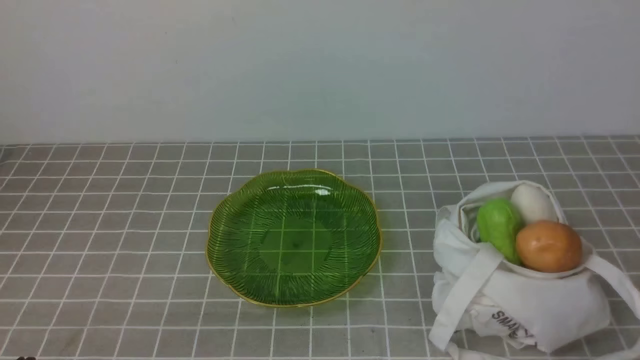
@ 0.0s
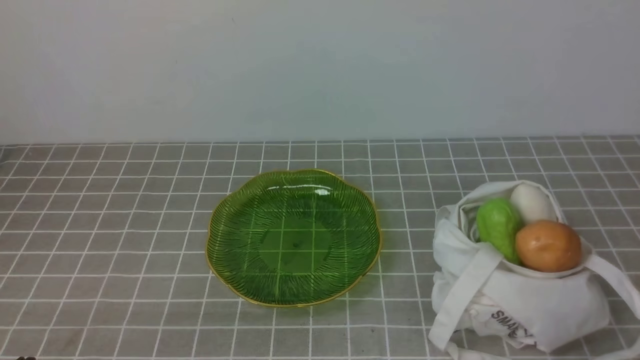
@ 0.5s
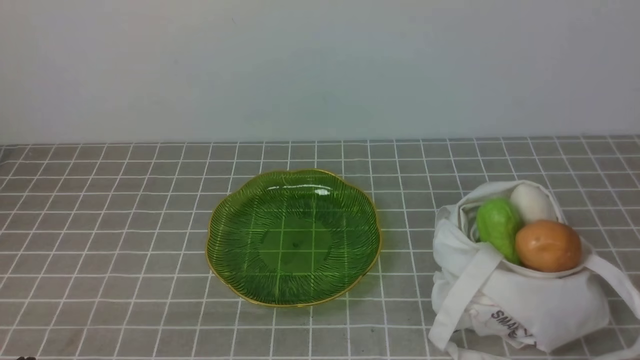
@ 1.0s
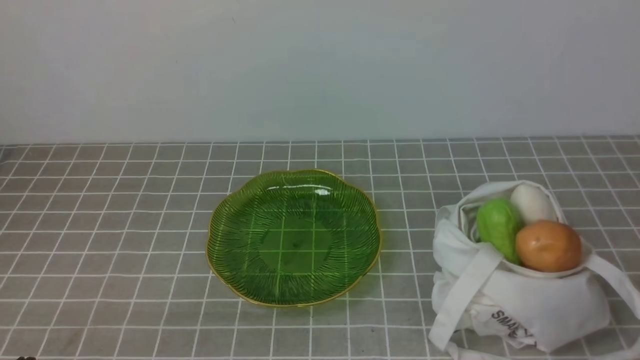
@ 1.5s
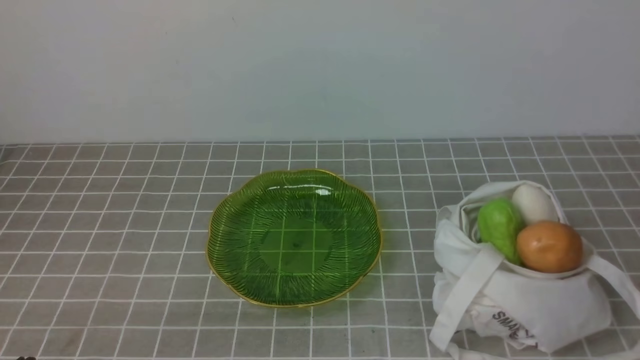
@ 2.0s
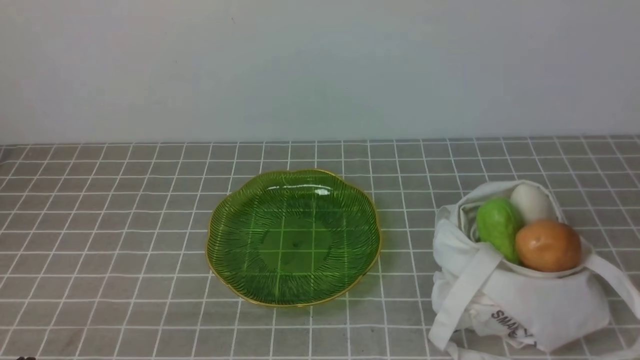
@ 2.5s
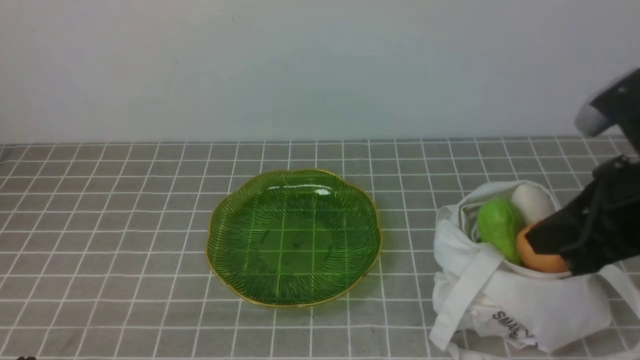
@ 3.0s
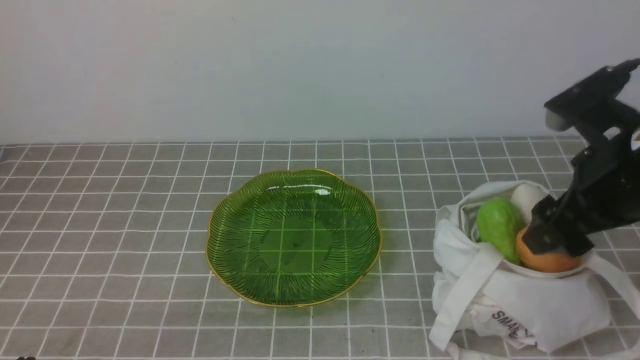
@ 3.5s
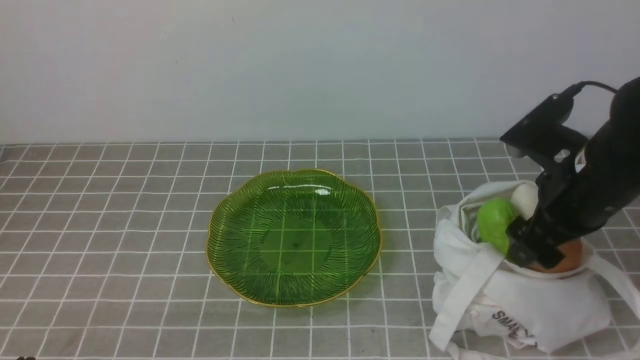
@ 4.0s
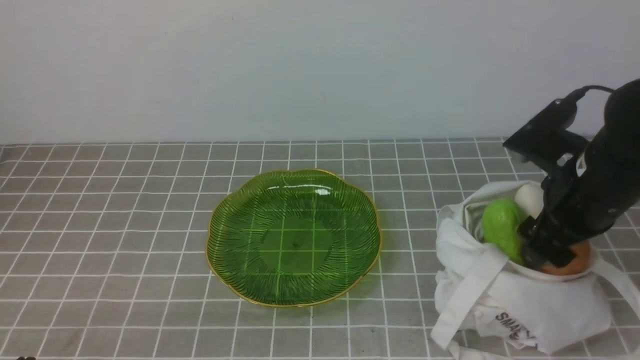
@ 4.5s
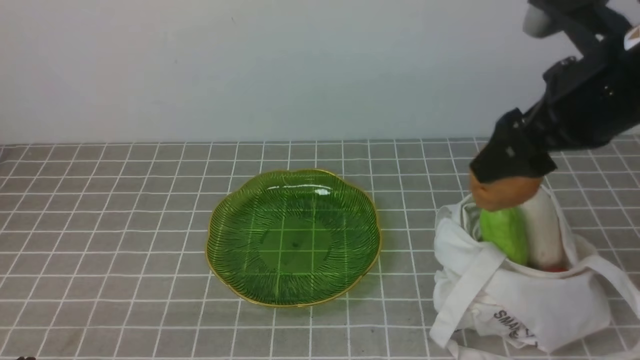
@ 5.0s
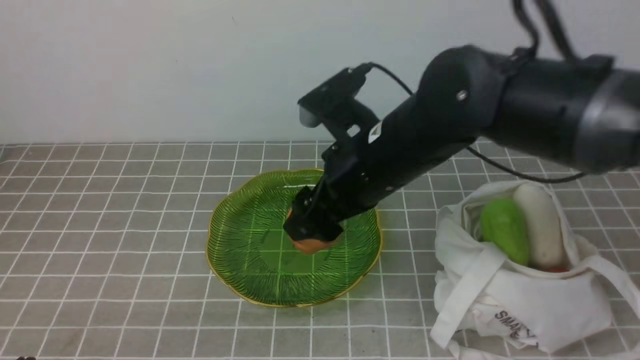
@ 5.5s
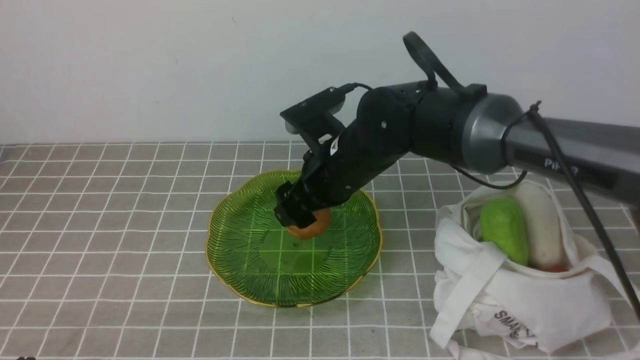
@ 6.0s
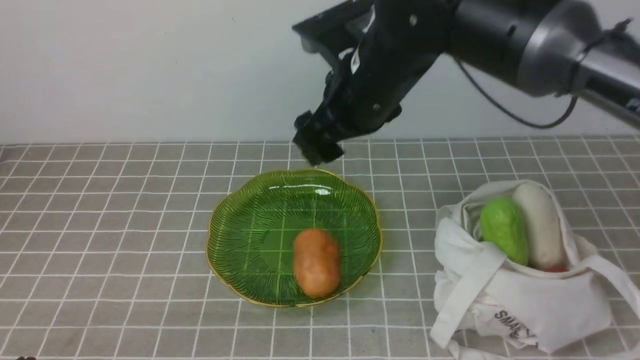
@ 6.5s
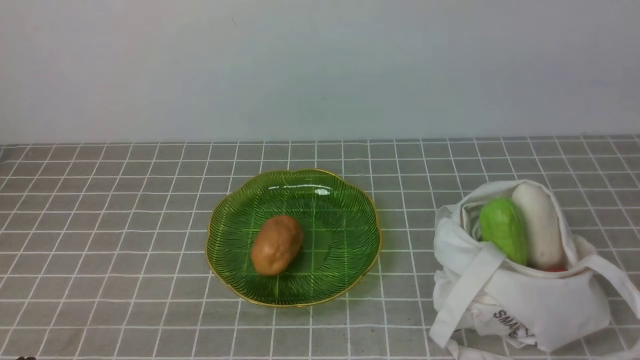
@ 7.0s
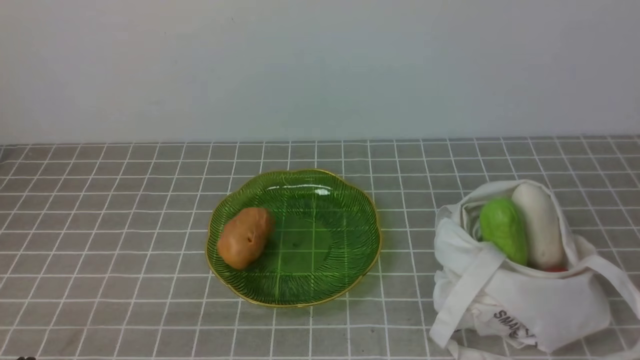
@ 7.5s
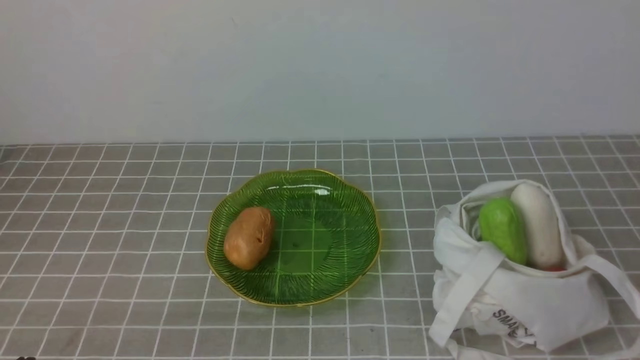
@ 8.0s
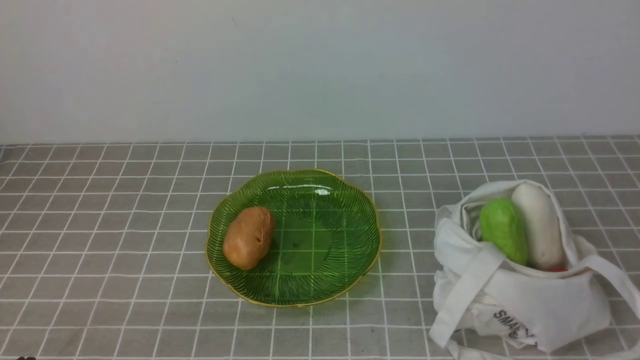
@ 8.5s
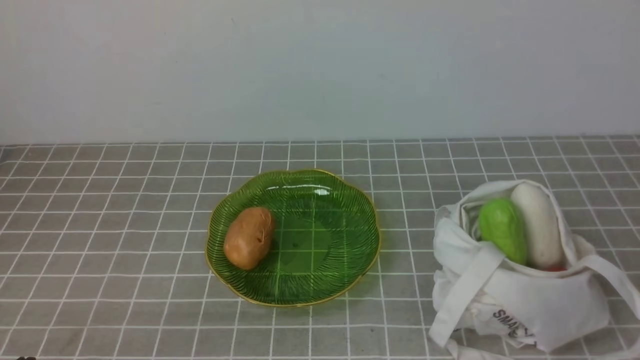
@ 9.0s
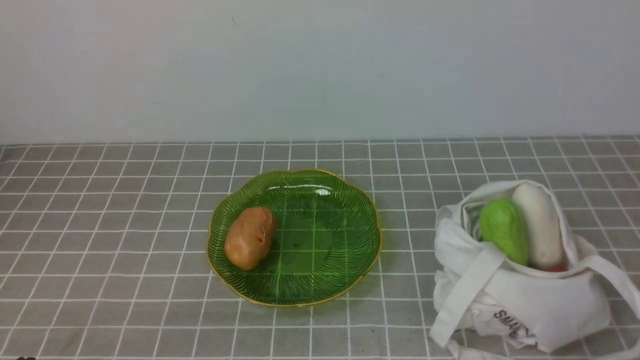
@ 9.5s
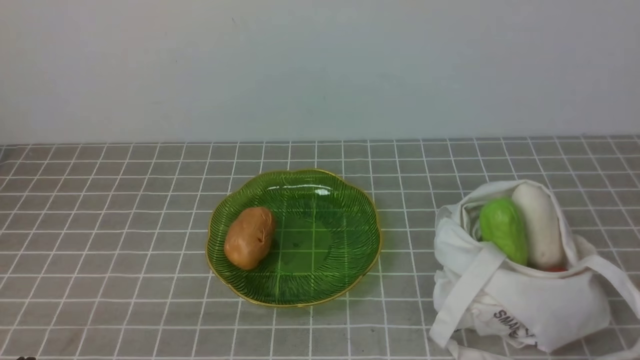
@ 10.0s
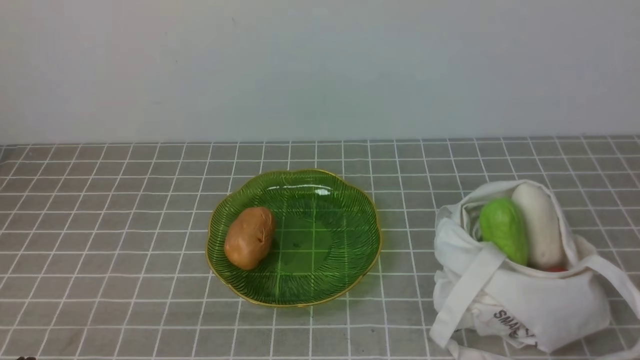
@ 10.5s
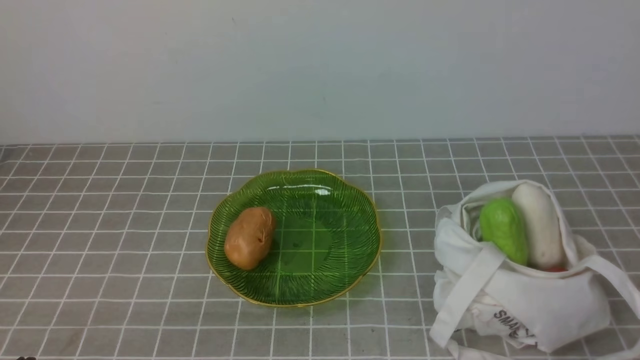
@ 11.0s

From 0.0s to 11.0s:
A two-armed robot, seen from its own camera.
Task of the whole recording: take vegetables from bag on grey coffee tablecloth place on plate.
Step, from 0.0s to 4.5s: Grasp the potato with right gripper.
Step, from 5.0s to 6.0s: Place the potato on the plate with right gripper.
From 2.0s to 3.5s: The right gripper is displaced forward by approximately 20 cm, and opens.
From 3.5s to 5.5s: The right gripper moves to the left, about 15 cm.
From 5.5s to 7.5s: The right gripper is displaced backward and to the right by some 35 cm, and closes its fingers.
